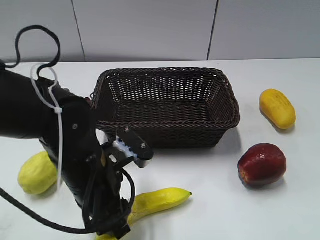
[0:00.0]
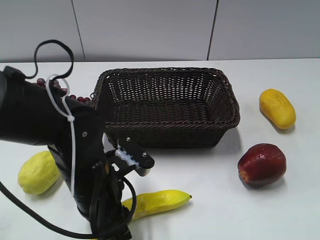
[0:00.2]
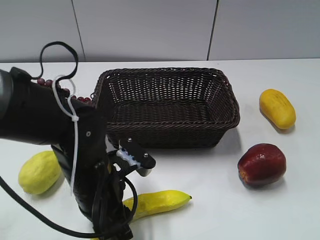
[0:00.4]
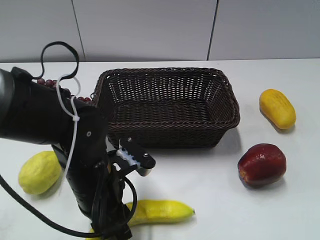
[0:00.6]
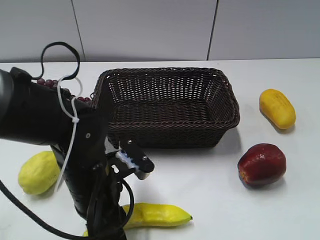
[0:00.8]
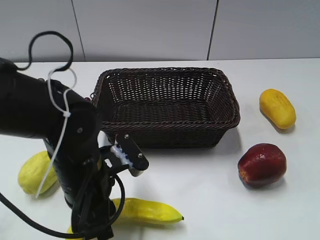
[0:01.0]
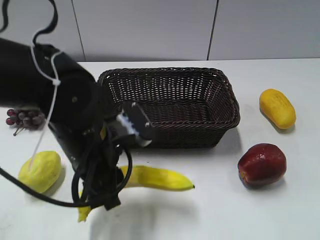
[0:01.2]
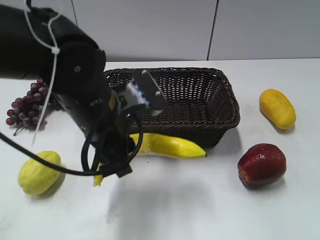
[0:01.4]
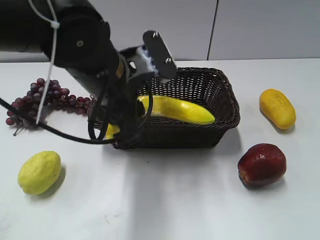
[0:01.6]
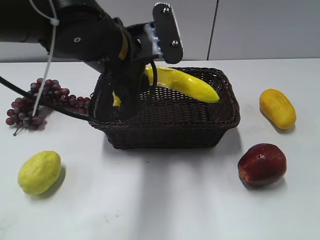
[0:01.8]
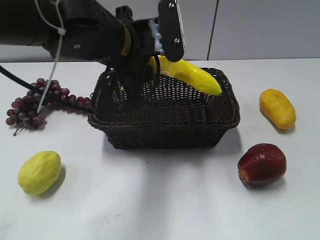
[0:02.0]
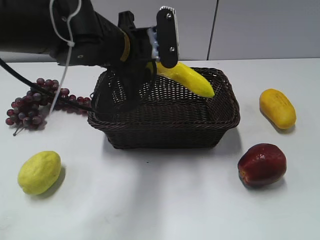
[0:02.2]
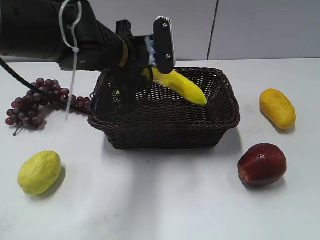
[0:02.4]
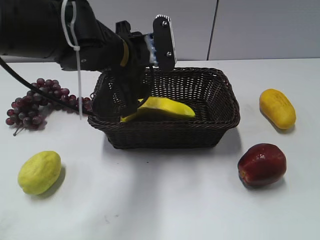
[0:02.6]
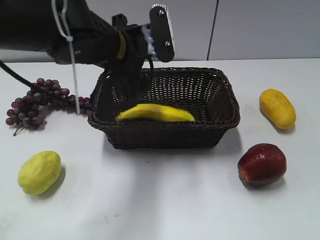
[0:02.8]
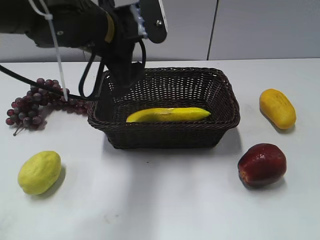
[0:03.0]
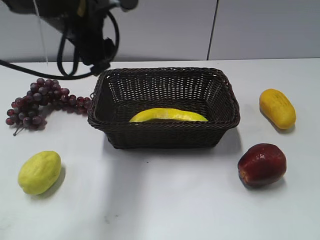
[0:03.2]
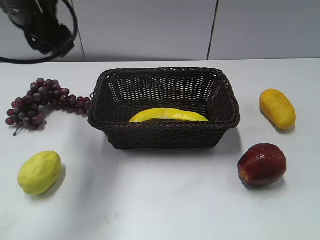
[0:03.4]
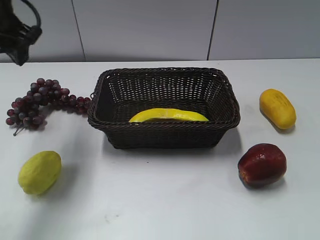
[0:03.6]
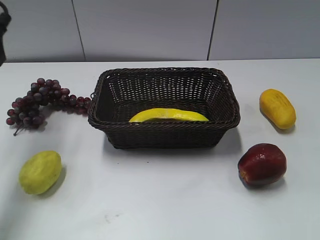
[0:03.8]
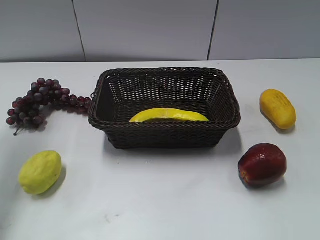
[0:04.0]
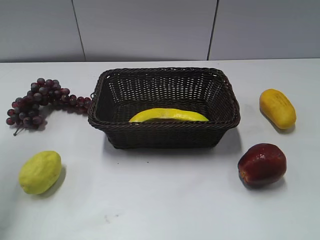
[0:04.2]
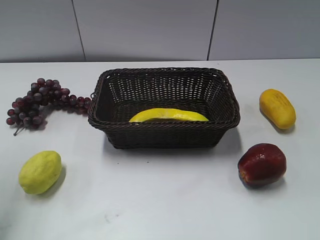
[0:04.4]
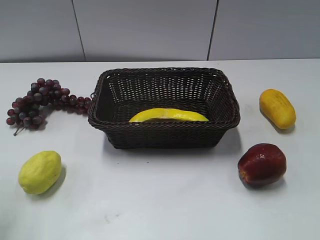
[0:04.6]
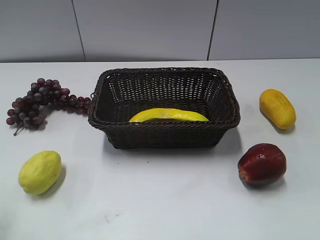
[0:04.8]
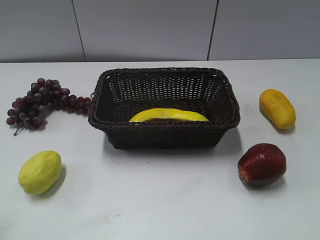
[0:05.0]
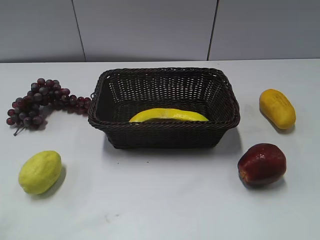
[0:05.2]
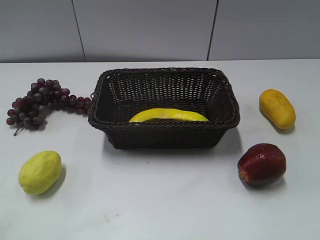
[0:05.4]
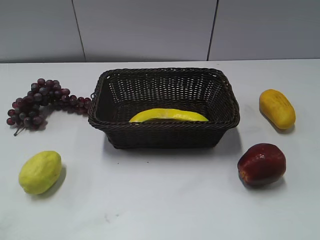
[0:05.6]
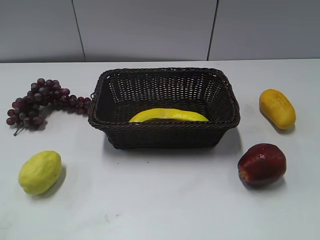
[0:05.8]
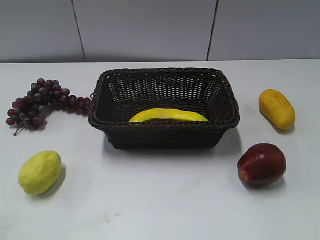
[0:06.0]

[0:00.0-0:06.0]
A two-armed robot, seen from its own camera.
Step, 0:00.8 to 0:03.2: Place the banana in the basket with left gripper.
0:00.0 to 0:01.6: The left gripper travels upward and forward by some 10 cm, and closes up.
0:01.6 to 0:03.0: The left gripper is displaced forward by about 5 cm, and opens its fingers.
0:03.0 to 0:04.4: The left gripper is displaced to the left and upward by roughly 25 cm.
0:04.4 to 0:06.0: The left gripper travels backward and downward by about 25 cm.
